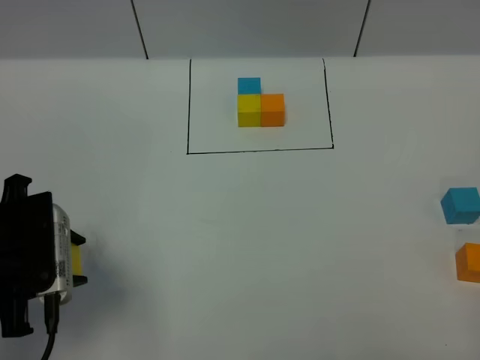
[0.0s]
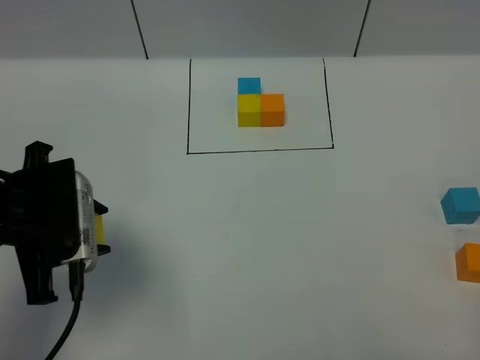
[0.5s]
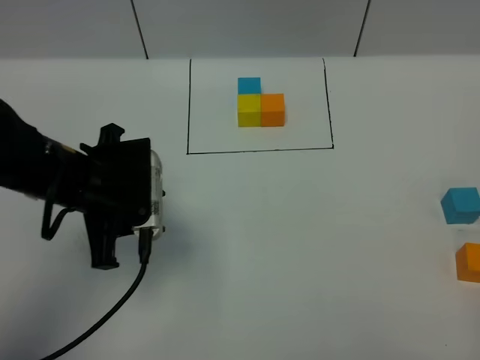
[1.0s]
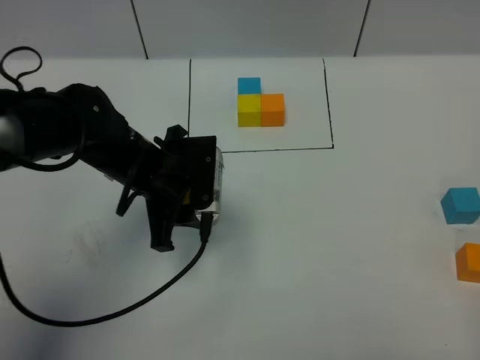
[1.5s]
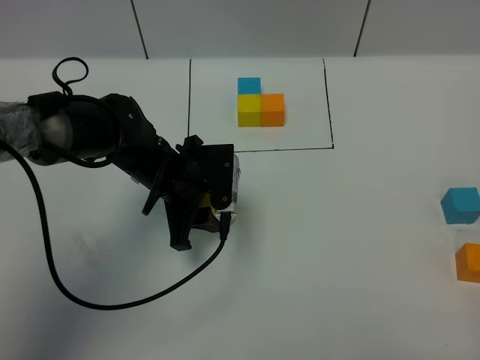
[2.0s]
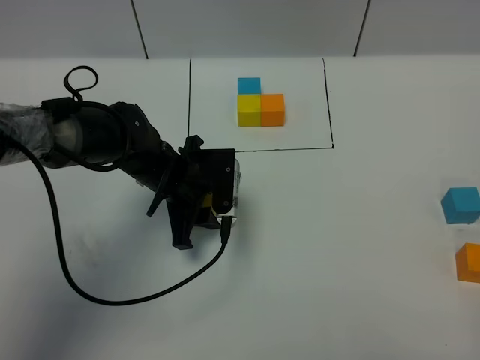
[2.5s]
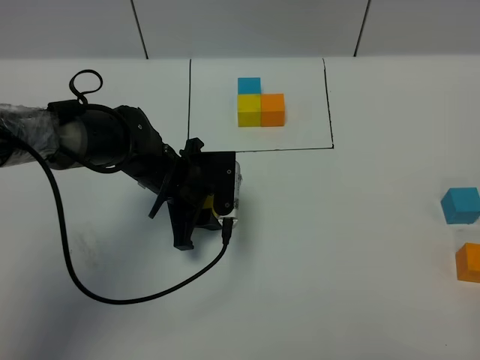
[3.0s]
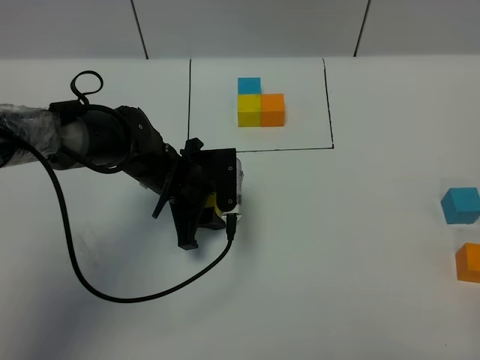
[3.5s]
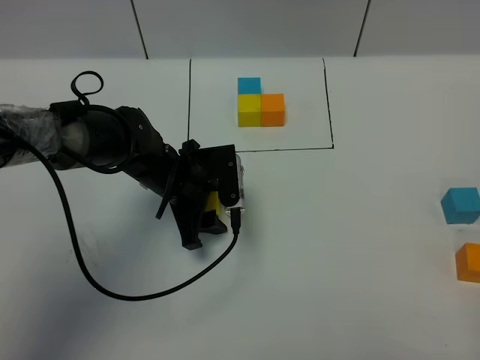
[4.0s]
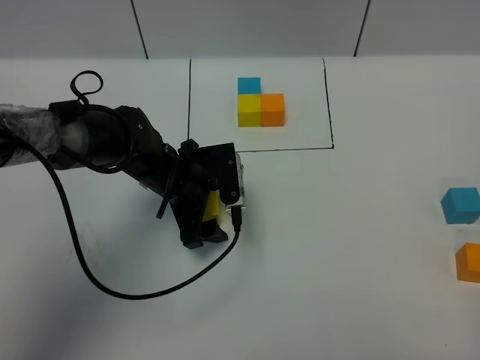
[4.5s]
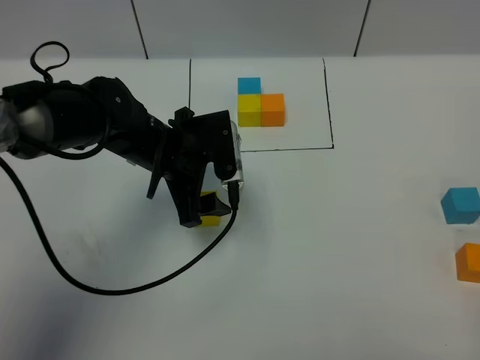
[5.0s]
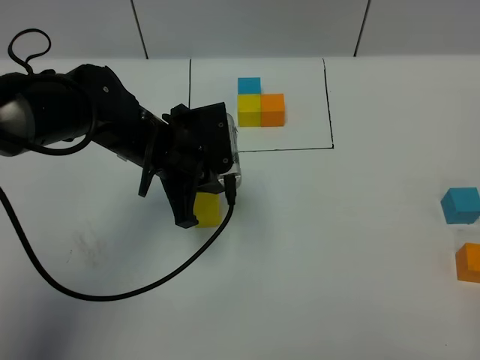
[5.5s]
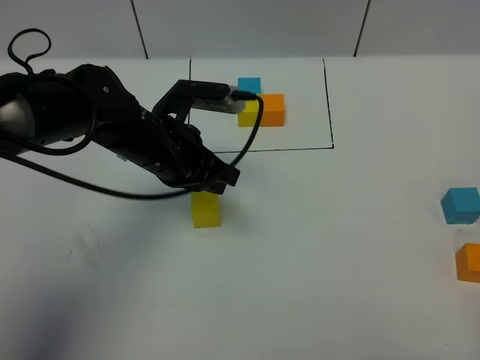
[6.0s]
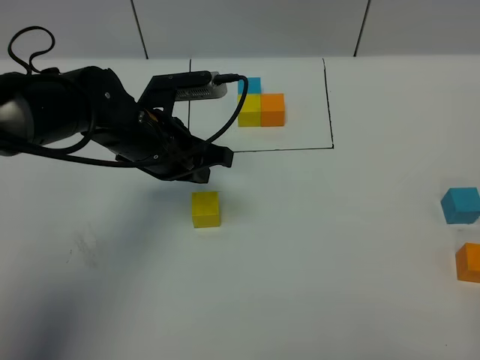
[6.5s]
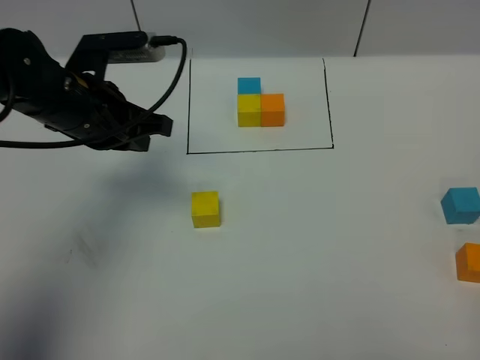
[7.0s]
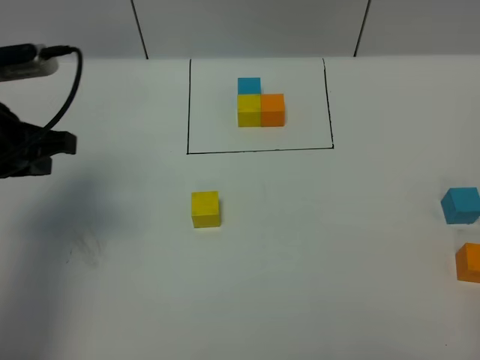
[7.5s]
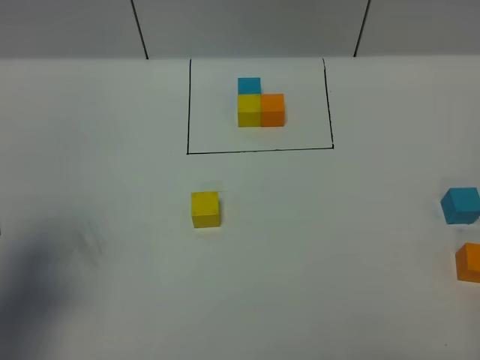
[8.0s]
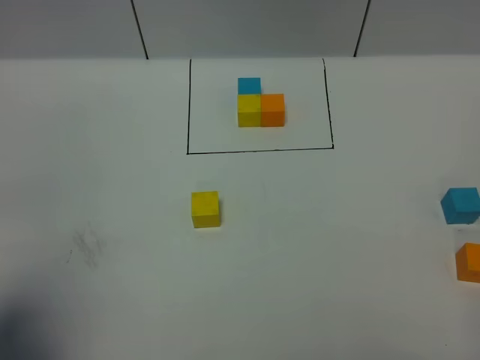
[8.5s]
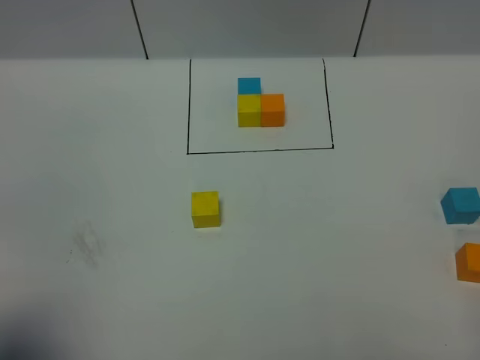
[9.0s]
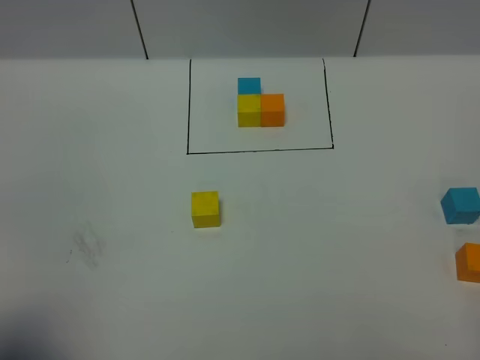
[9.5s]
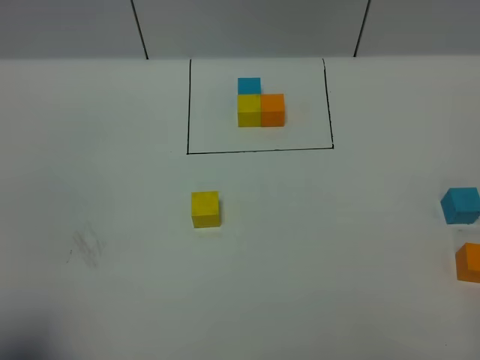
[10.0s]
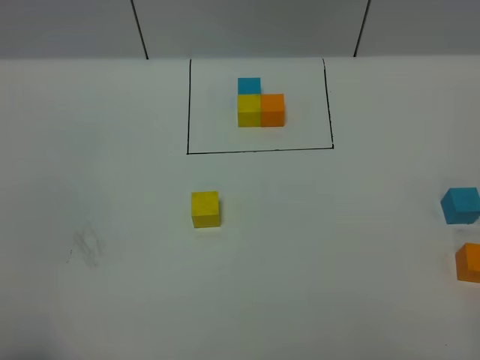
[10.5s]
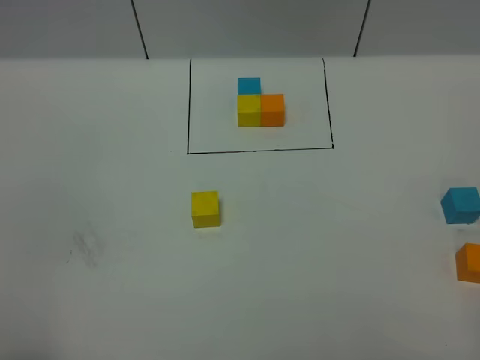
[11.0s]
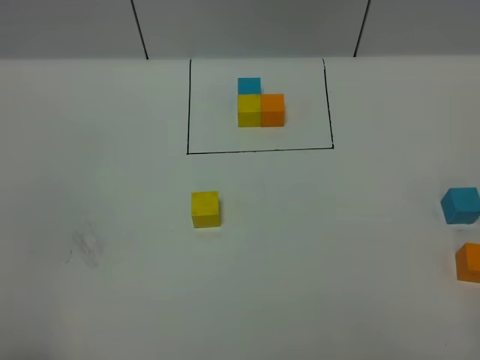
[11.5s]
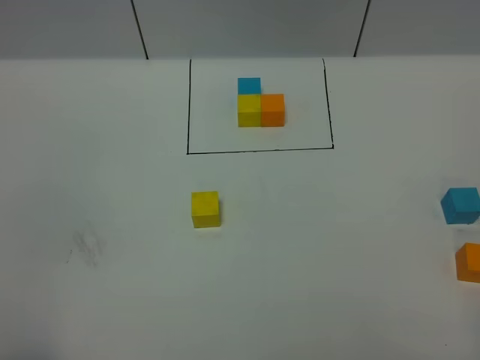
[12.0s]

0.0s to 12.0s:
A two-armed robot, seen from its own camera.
Task of the whole recording: According to the building block template in front, assemble the scattered blocks together.
Step, 0.0s to 4.0s: Put the yellow cube in the center of the table.
0.0s to 2.0s: The left gripper travels to the right, forward and downward by about 25 cm.
2.0s to 4.0s: There are only small adjustments of the grippers.
4.0s to 6.0s: The left gripper shifts approximately 10 cm upward, and closes.
6.0s to 8.0s: The left gripper goes about 30 cm to the left, backward and upward.
8.0s to 10.0s: The left gripper is displaced backward by about 10 cm.

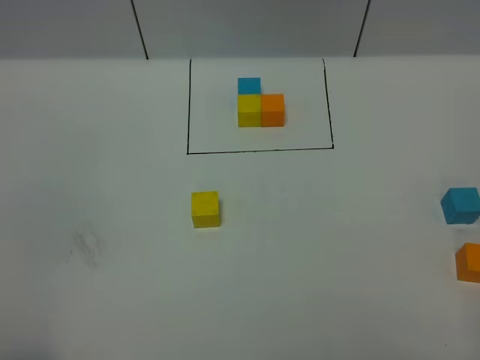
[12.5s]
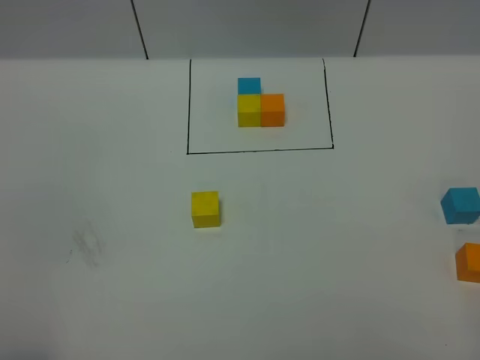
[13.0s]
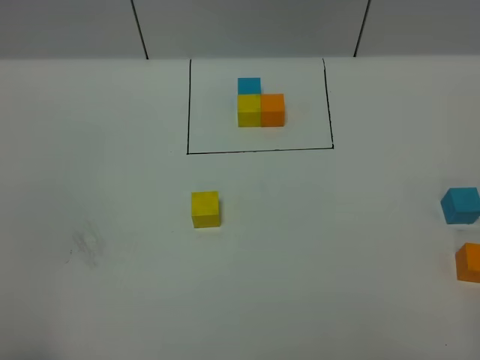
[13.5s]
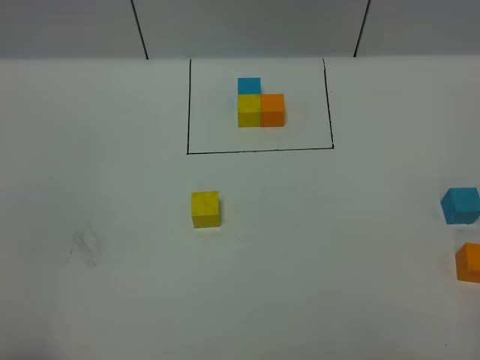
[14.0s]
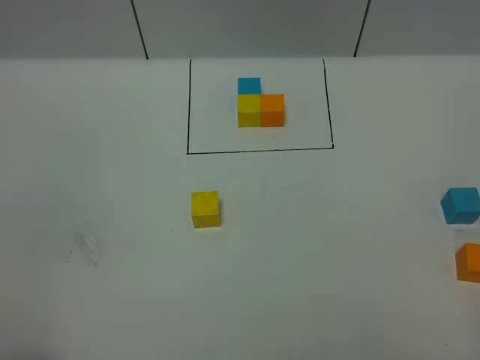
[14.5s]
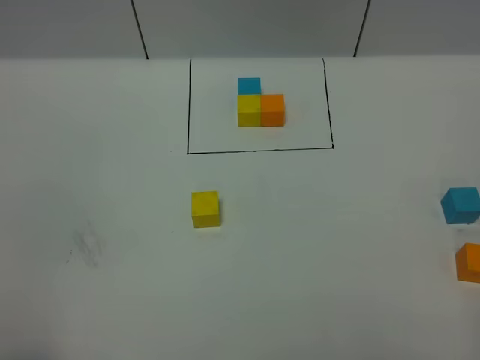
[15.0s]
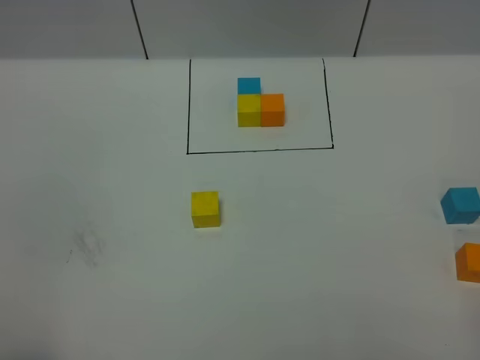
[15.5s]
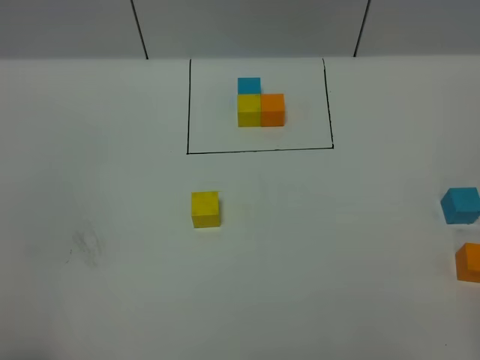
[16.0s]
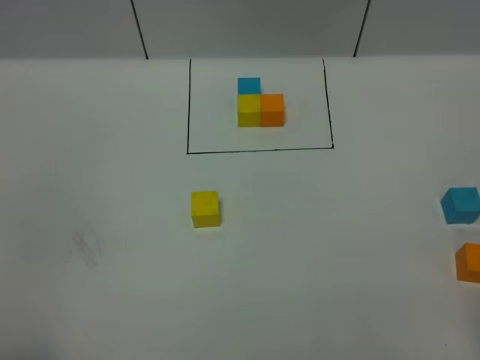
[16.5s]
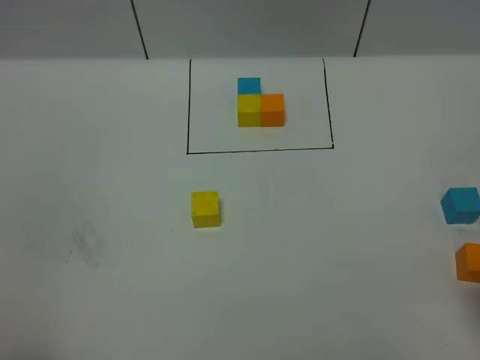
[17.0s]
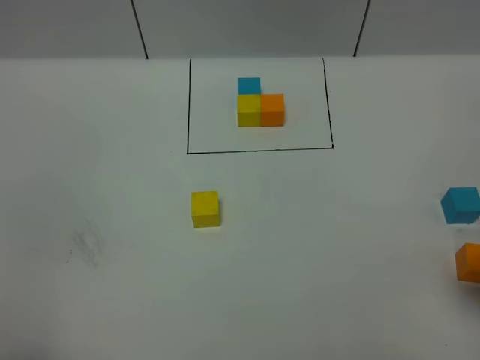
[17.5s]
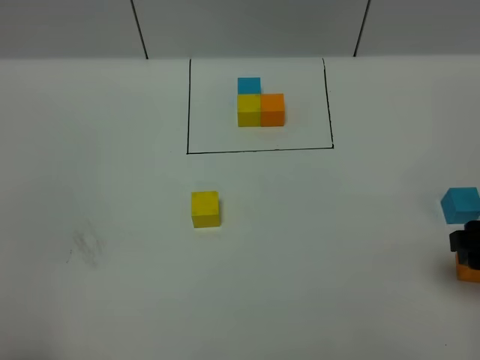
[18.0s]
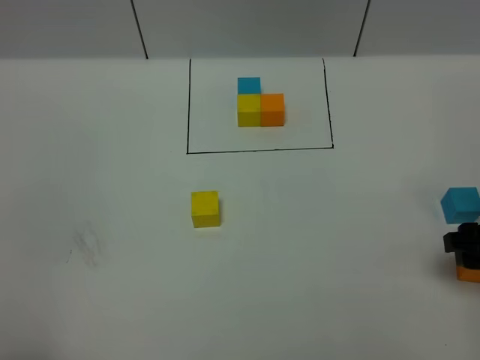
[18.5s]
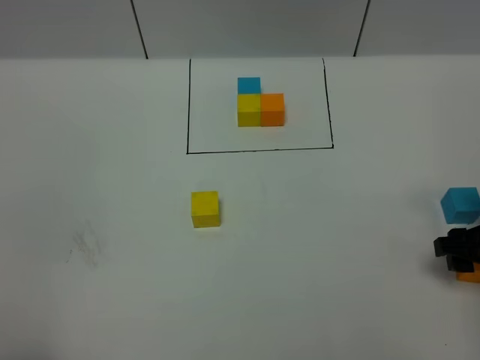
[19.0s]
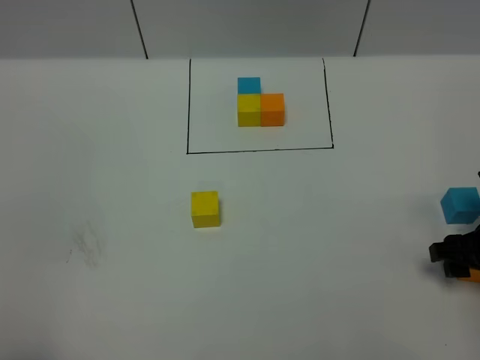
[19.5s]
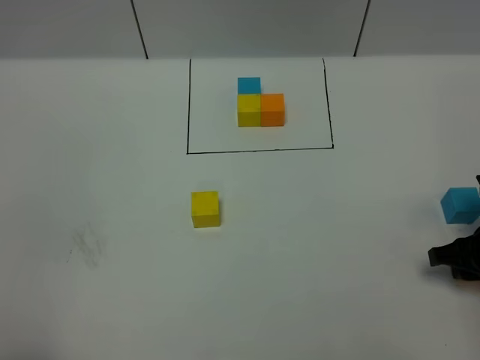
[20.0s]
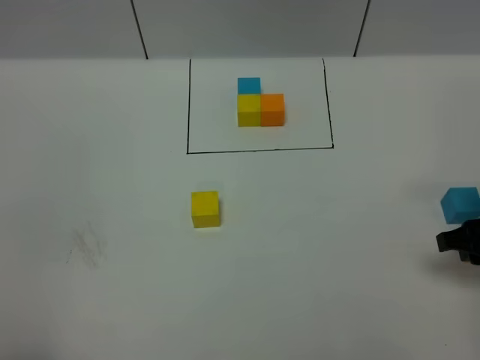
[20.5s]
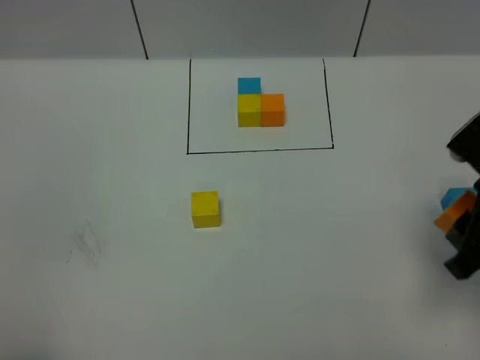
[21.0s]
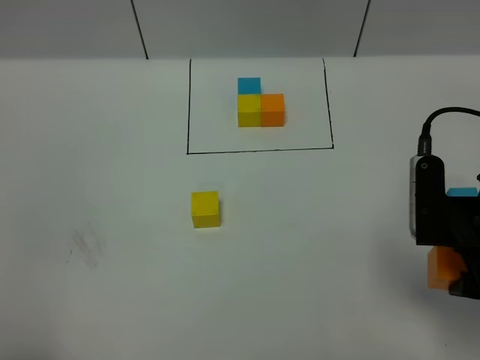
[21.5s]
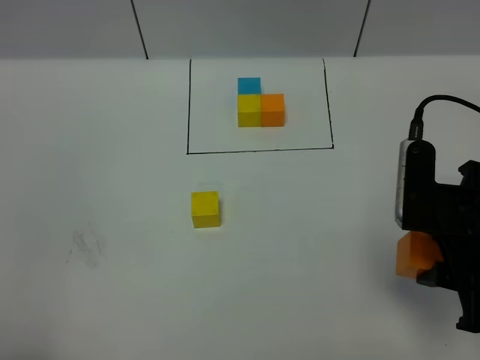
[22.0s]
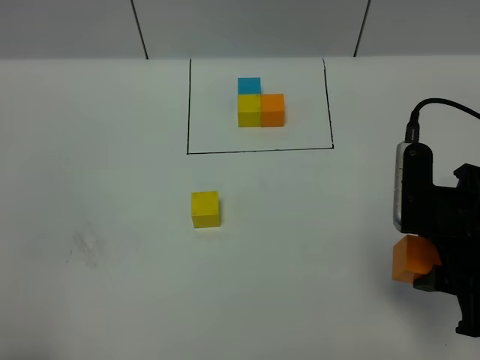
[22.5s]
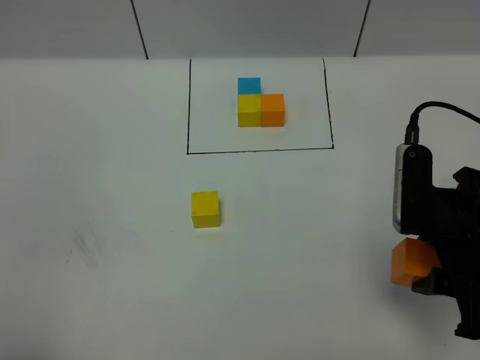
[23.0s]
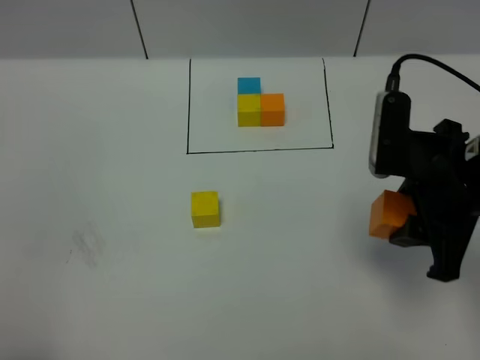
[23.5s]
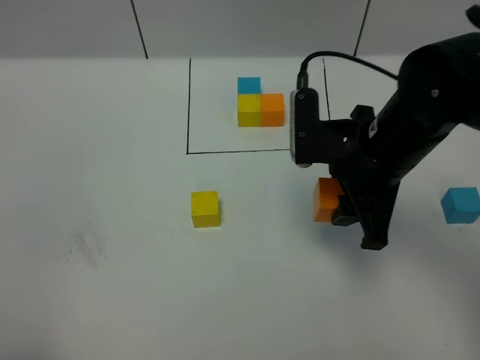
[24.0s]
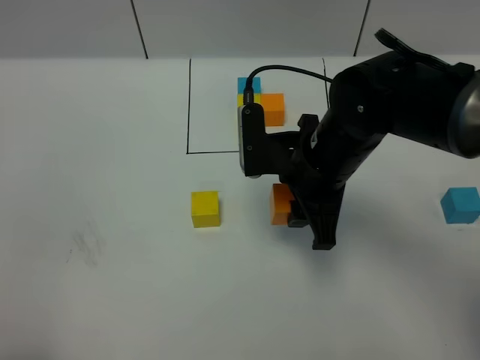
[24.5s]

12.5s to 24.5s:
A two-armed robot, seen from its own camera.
Task of the whole recording: According to the building block template in front, assemble the scattered blocks together.
12.5s to 14.5s: The two grippers keep their place.
16.5s to 18.5s: The right gripper goes roughly 20 cm downward and forward.
20.5s to 22.5s: The right gripper goes approximately 10 cm to the left and upward.
22.5s to 24.5s: The right gripper goes roughly 15 cm to the left and forward.

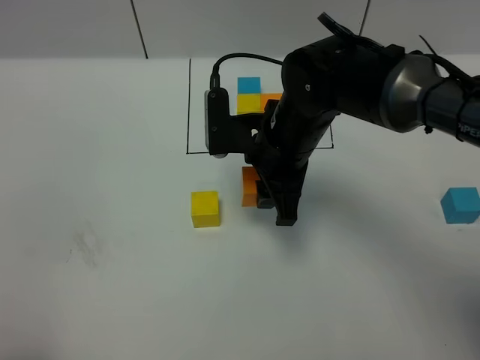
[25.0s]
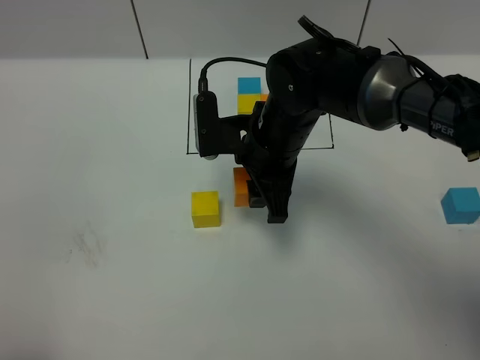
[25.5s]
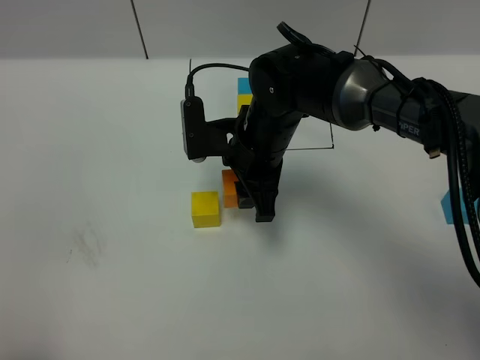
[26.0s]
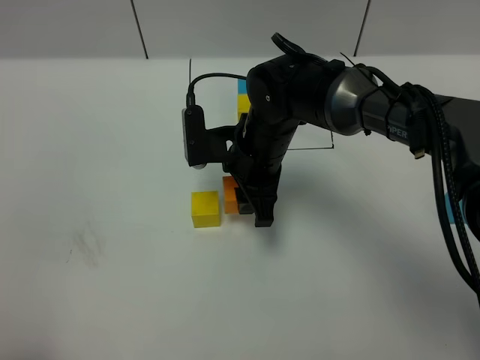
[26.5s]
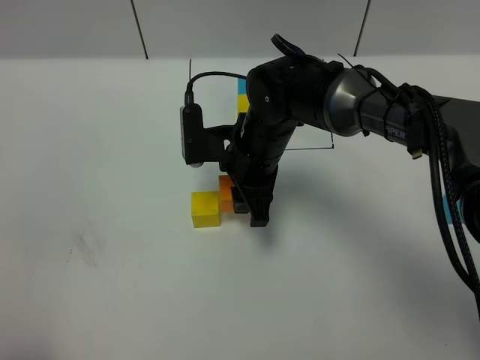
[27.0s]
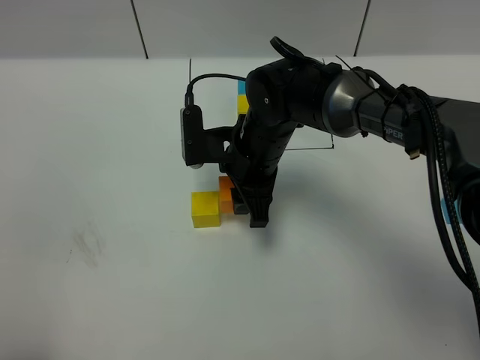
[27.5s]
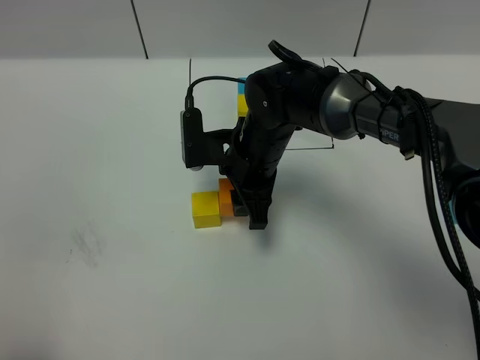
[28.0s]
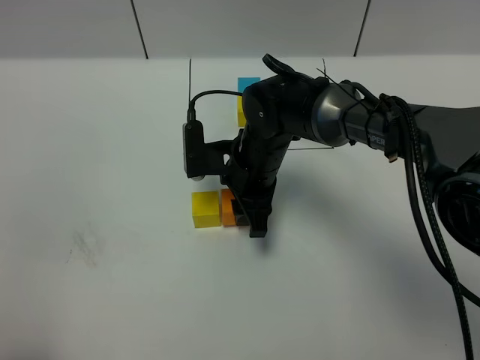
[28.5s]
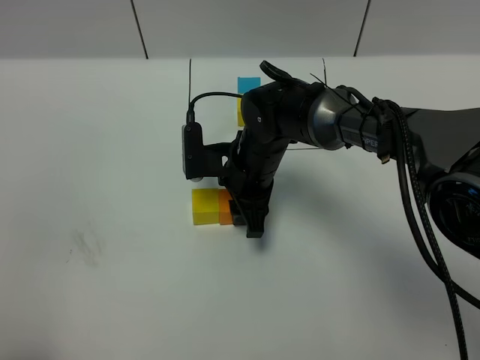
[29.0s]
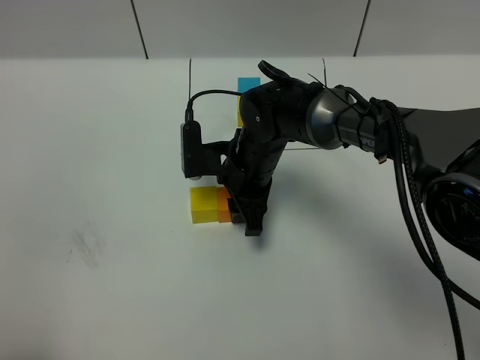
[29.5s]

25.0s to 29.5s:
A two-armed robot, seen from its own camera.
Task of the whole recording: According to the building block template in front, assemble the scattered blocks together.
25.0s to 27.0s: The right gripper ends up about 5 cm from where it was.
27.0s to 29.5s: There are only small adjustments of the grippers.
